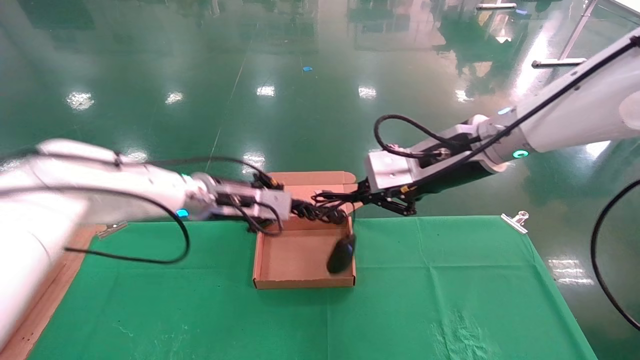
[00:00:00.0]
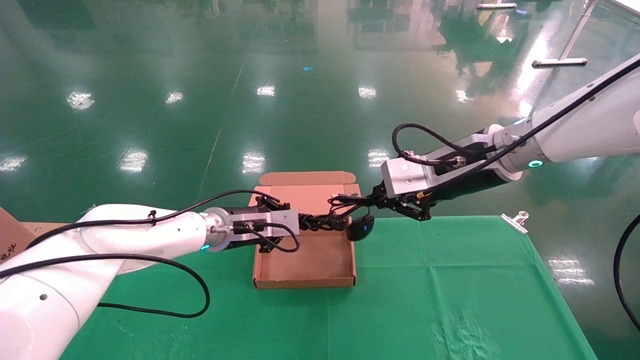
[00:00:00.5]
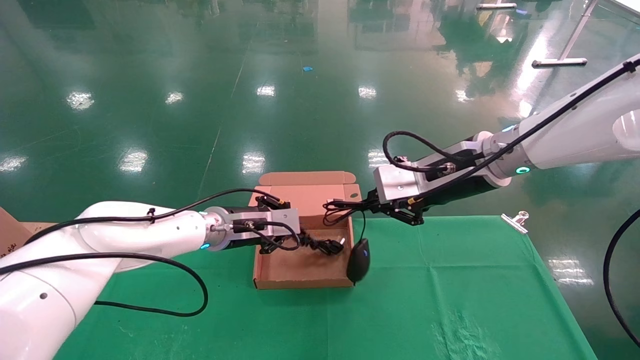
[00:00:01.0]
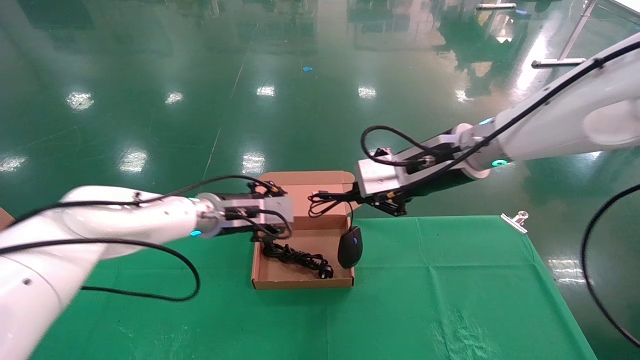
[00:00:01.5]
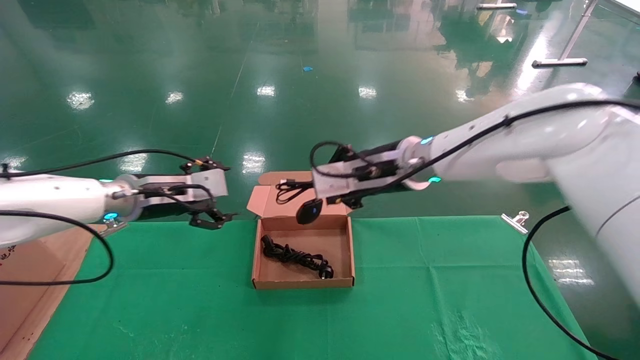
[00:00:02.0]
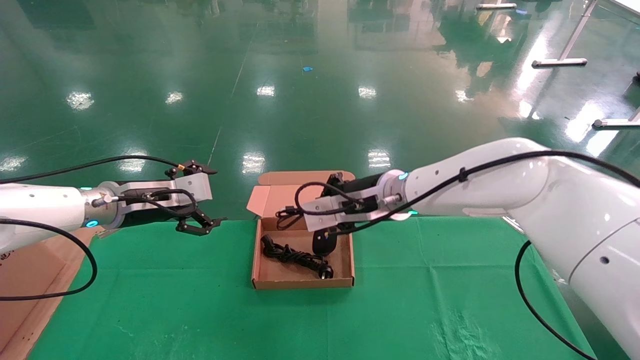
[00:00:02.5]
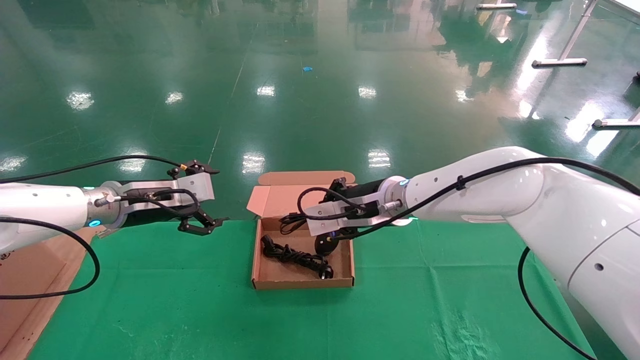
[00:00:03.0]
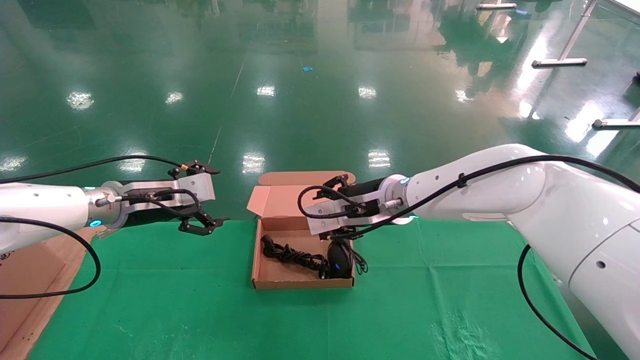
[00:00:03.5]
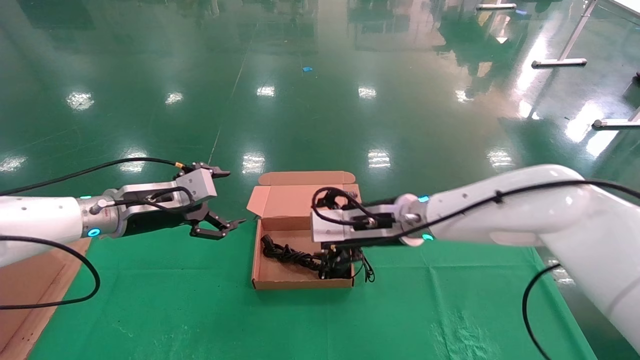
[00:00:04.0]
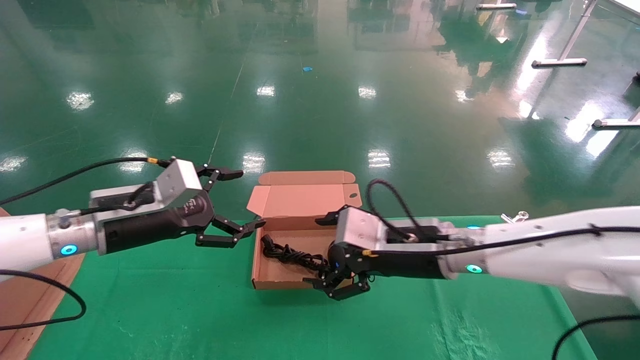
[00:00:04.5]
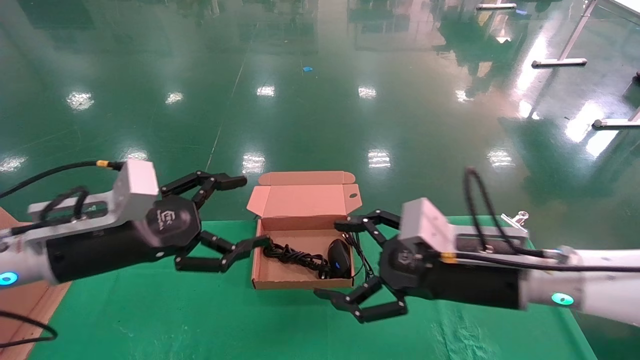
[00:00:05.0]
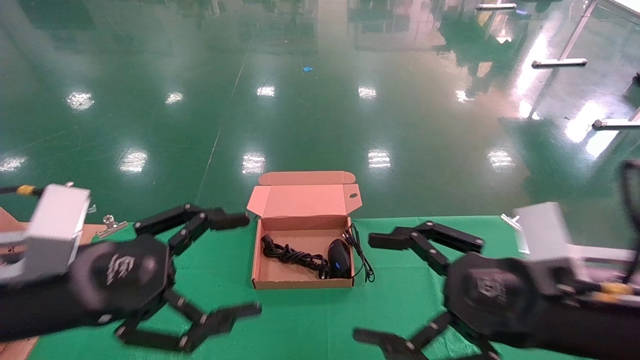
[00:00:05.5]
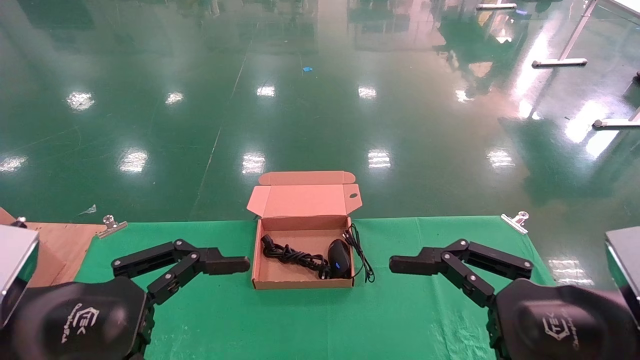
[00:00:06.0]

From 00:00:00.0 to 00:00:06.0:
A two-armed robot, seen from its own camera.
Step, from 00:00:00.0 to 00:00:04.0: Place the mouse and power cord into the box.
From 00:00:00.0 to 00:00:02.0: The right gripper moves to the left and forward, some 10 cm. Meanwhile the left gripper goes some 10 cm to the left, and opens its fingers.
From 00:00:02.0 to 00:00:04.0: The right gripper heads downward, covering about 10 cm, and opens.
From 00:00:04.0 to 00:00:06.0: The left gripper shifts some 25 cm backward. Meanwhile the right gripper travels backward and to the right by about 30 cm.
